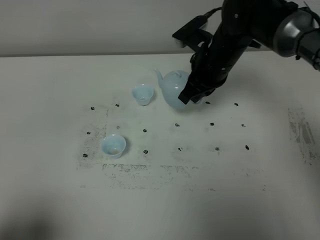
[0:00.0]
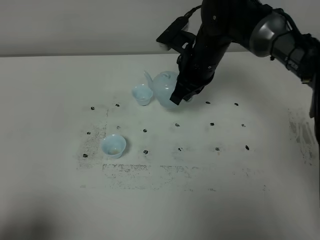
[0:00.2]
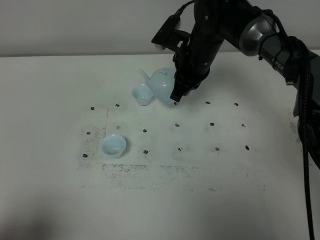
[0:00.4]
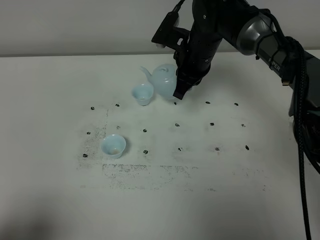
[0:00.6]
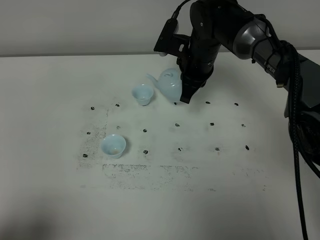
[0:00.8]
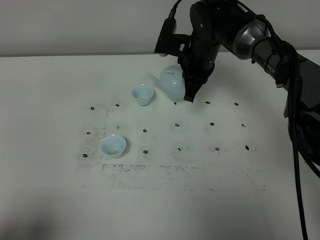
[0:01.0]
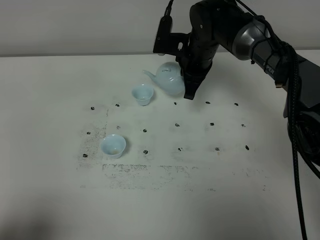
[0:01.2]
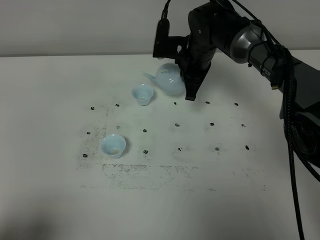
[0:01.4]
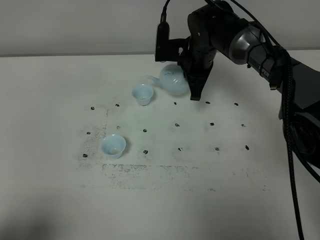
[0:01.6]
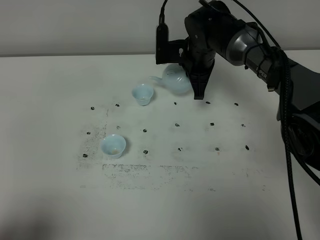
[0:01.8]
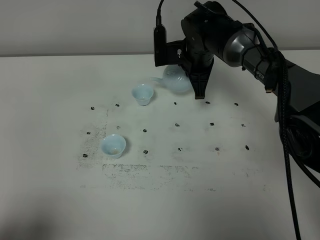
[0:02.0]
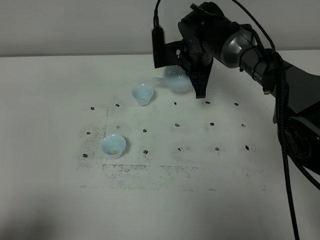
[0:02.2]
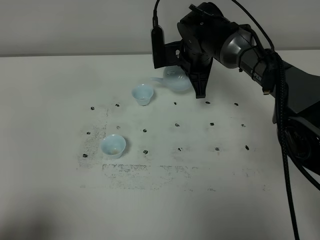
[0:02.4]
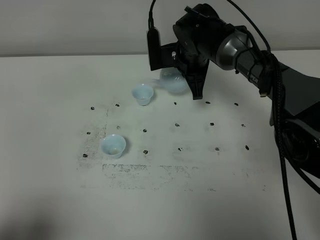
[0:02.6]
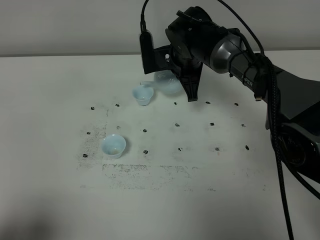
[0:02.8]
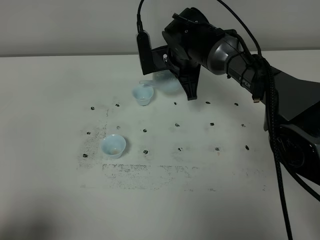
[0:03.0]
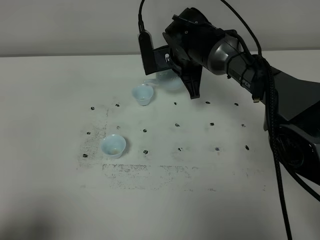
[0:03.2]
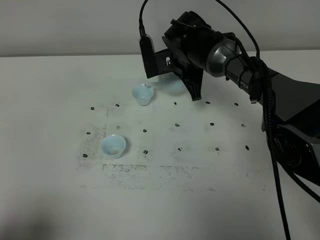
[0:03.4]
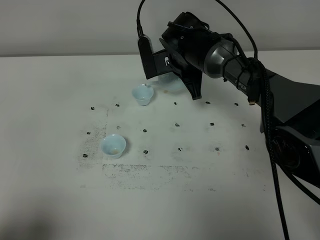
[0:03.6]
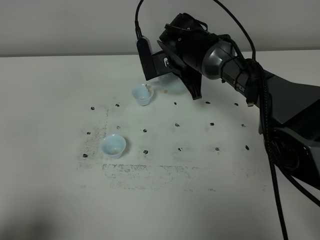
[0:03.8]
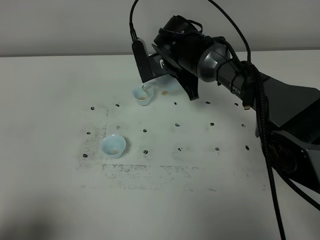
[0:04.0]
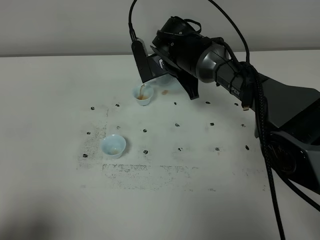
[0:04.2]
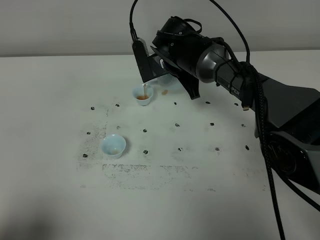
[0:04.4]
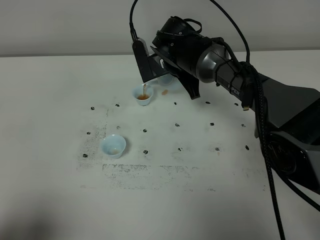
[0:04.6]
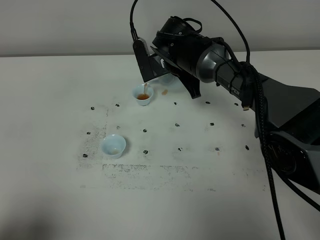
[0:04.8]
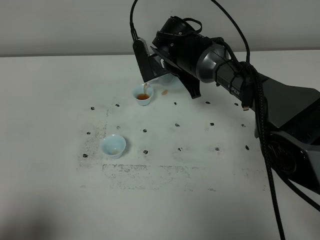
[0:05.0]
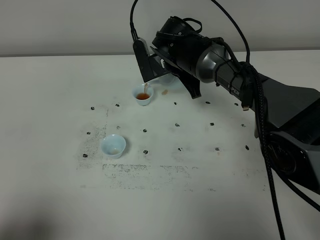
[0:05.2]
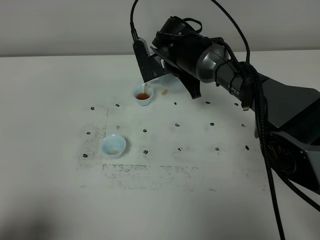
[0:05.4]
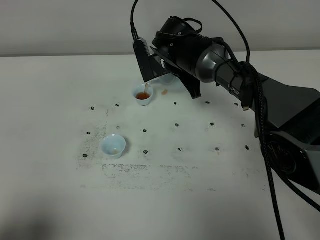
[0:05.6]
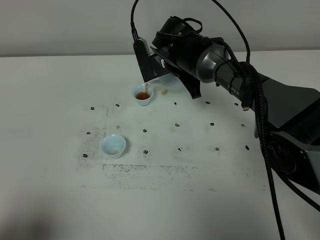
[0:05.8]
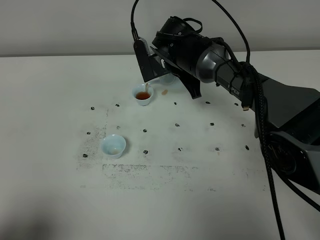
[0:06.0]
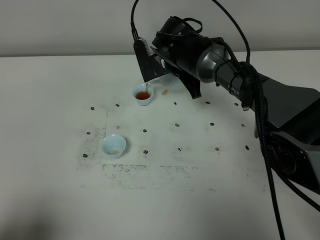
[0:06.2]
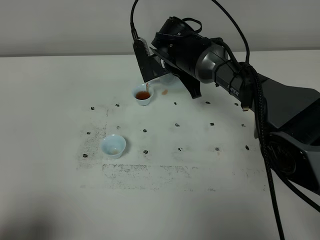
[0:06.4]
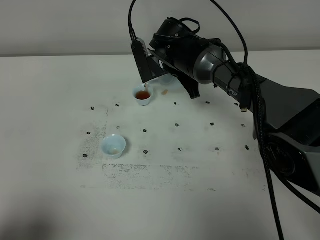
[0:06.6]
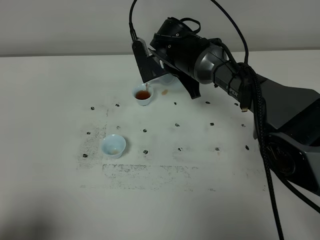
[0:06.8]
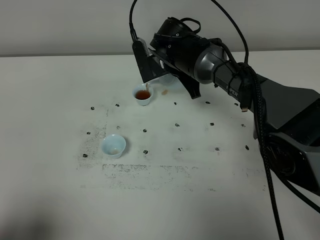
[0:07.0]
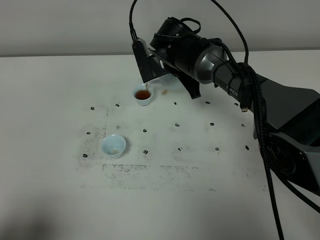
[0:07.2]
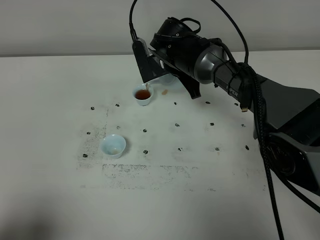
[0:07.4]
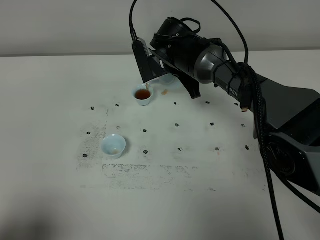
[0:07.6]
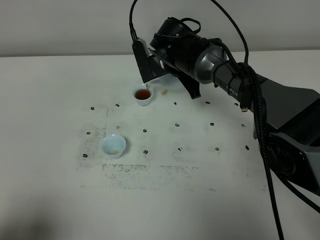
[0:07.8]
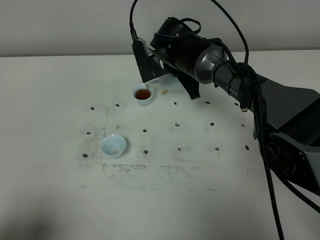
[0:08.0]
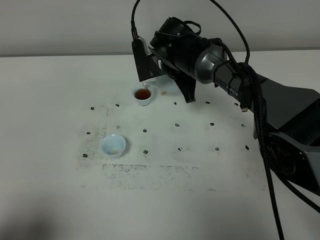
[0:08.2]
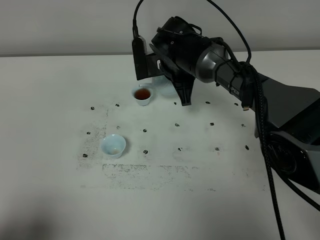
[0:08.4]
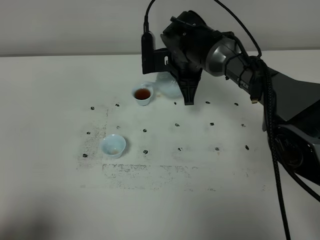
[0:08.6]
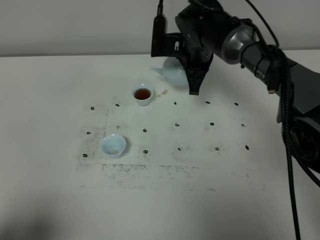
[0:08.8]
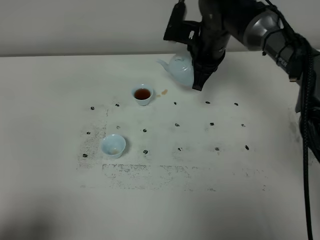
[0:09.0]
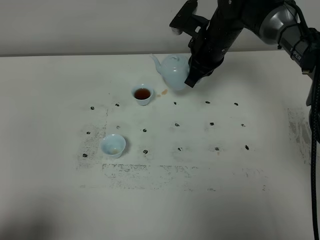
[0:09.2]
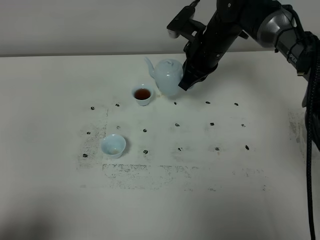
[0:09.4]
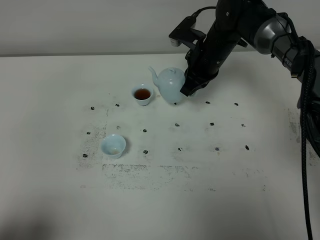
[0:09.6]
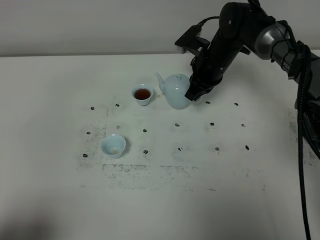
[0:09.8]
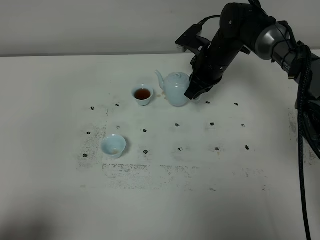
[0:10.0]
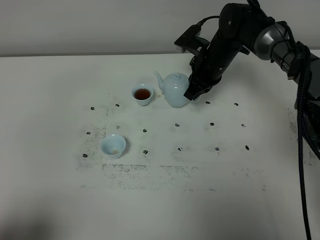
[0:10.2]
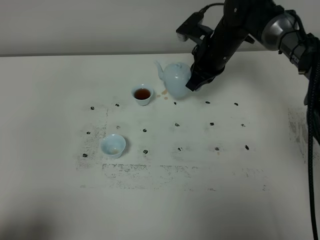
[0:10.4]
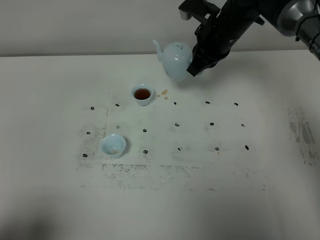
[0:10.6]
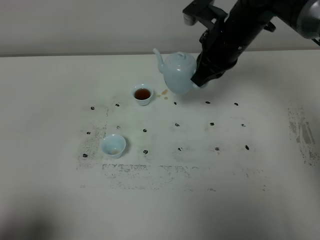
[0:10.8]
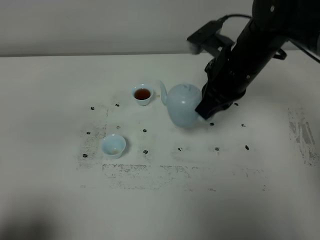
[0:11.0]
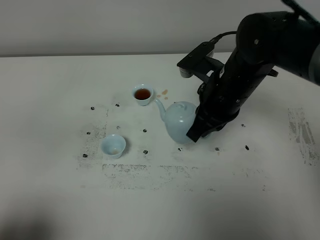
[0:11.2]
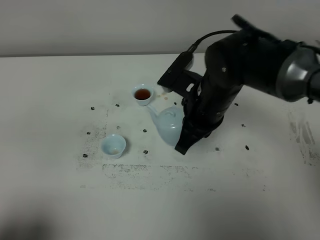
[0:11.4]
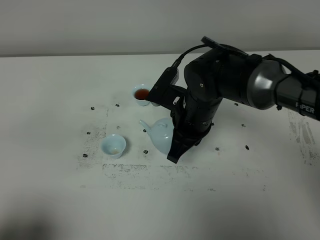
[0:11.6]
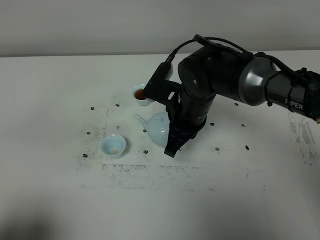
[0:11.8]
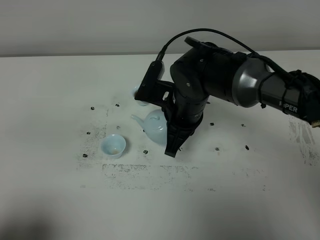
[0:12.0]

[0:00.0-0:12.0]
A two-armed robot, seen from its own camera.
Task of the whole recording: grasp the blue porcelain teapot and pour the tea into the two blue porcelain teacups one by one, put the blue porcelain teapot back in its original place.
0:00.0 to 0:01.6: The right gripper goes some 5 cm forward.
0:01.6 to 0:03.0: The grippers stay close to where they were, moving slightly.
0:03.0 to 0:04.4: There are only small adjustments of the grippers.
0:04.4 to 0:07.6: Neither gripper changes place.
0:07.6 to 0:09.0: The right gripper shifts some 5 cm to the right.
0:10.4 to 0:12.0: The right gripper travels backward and to the left by approximately 15 cm.

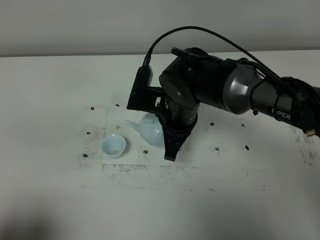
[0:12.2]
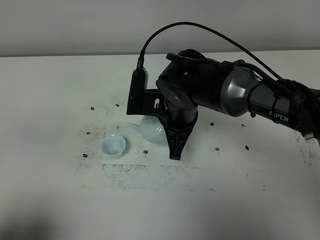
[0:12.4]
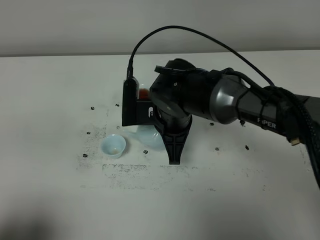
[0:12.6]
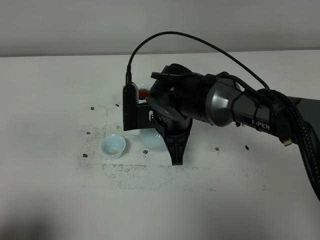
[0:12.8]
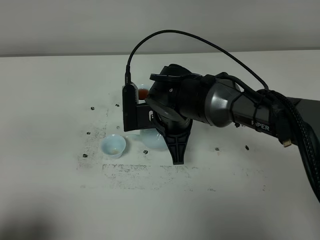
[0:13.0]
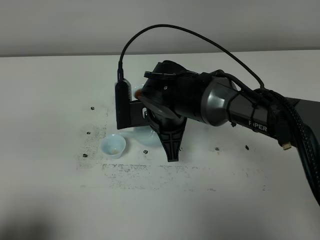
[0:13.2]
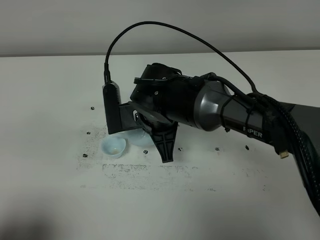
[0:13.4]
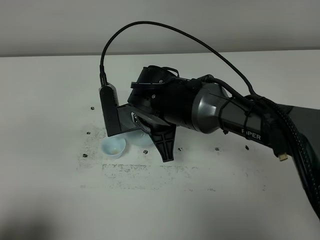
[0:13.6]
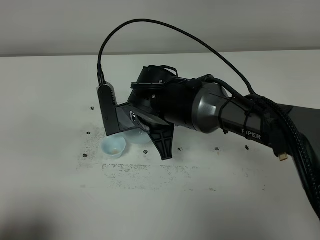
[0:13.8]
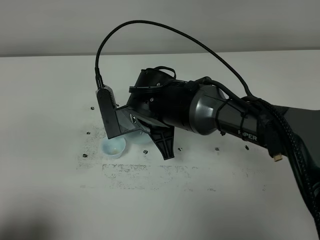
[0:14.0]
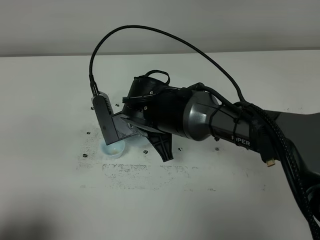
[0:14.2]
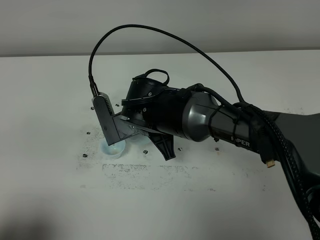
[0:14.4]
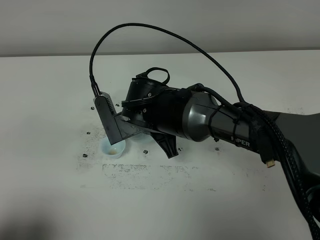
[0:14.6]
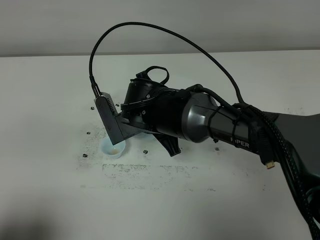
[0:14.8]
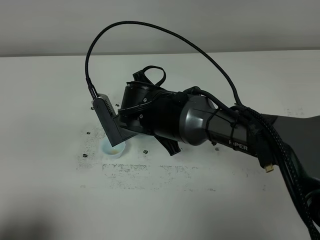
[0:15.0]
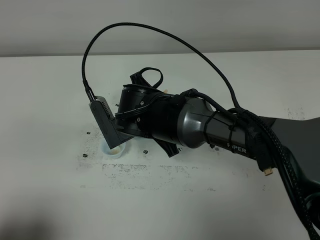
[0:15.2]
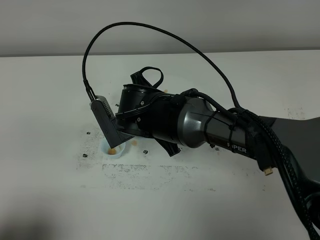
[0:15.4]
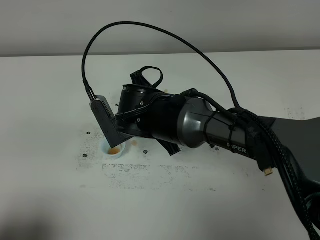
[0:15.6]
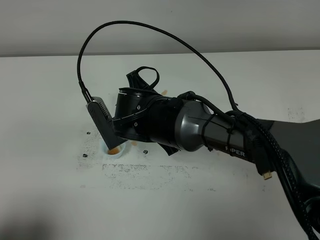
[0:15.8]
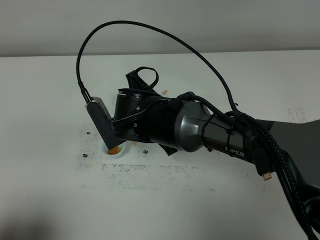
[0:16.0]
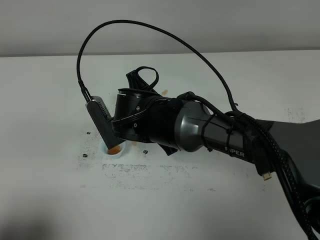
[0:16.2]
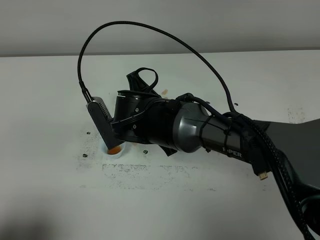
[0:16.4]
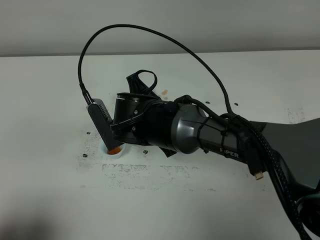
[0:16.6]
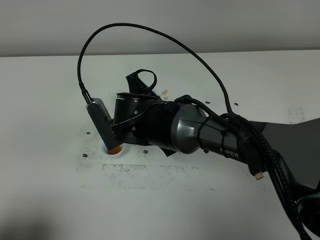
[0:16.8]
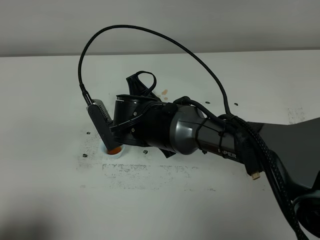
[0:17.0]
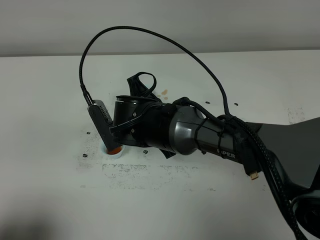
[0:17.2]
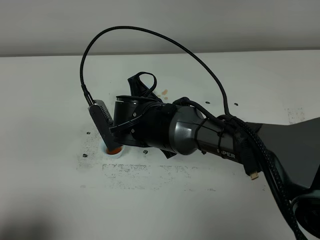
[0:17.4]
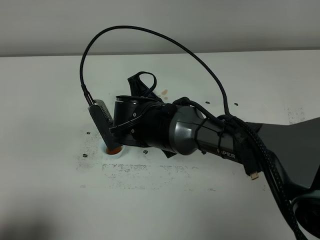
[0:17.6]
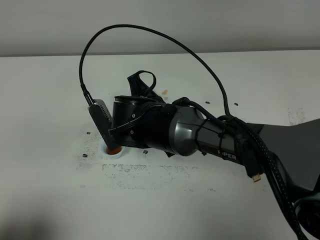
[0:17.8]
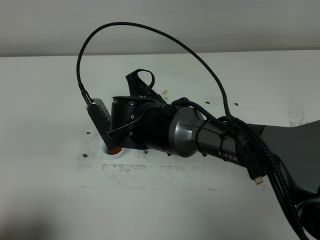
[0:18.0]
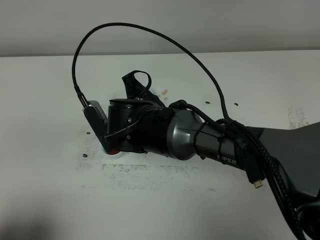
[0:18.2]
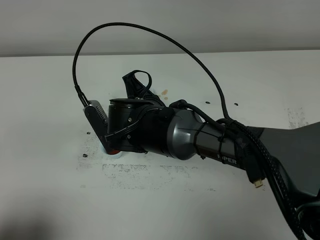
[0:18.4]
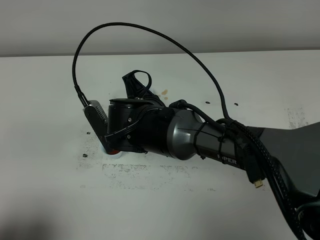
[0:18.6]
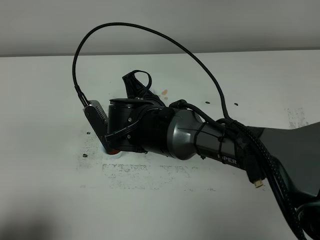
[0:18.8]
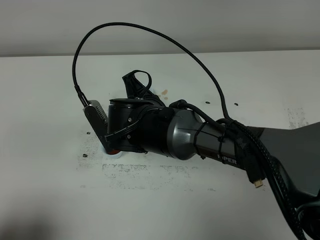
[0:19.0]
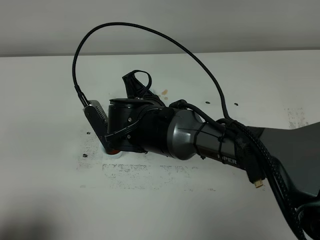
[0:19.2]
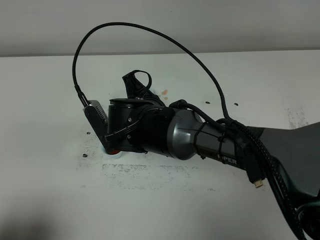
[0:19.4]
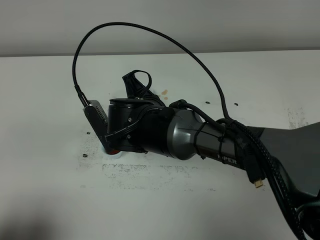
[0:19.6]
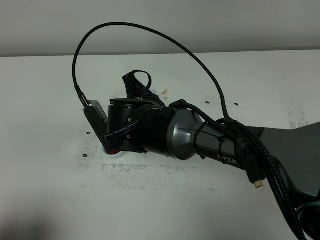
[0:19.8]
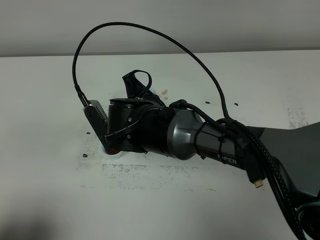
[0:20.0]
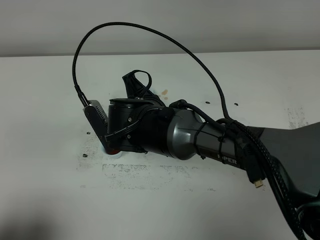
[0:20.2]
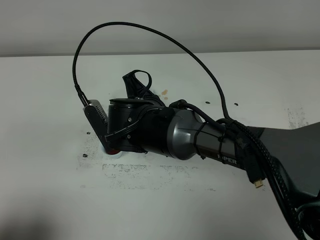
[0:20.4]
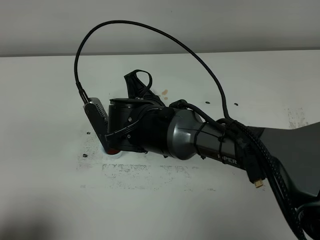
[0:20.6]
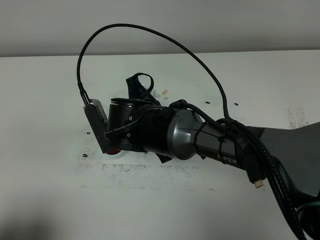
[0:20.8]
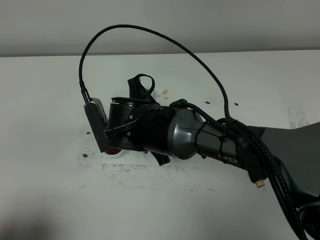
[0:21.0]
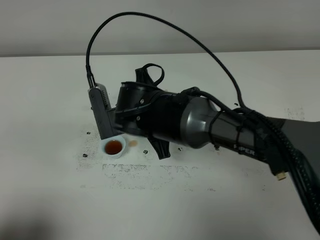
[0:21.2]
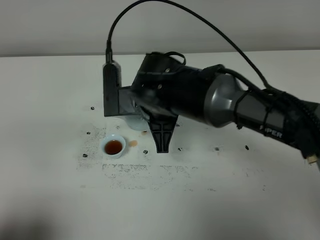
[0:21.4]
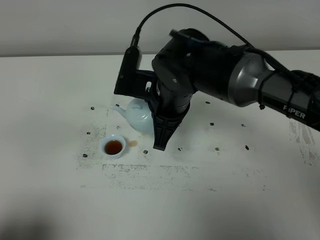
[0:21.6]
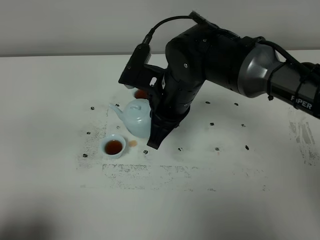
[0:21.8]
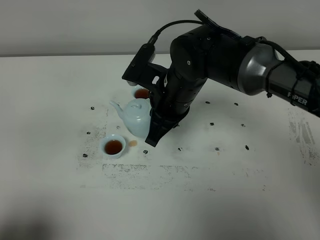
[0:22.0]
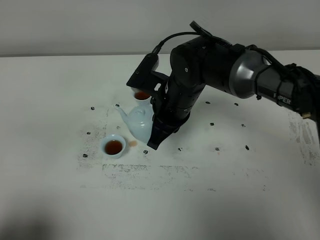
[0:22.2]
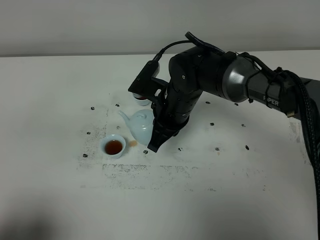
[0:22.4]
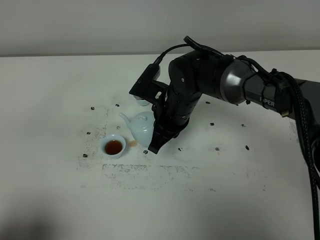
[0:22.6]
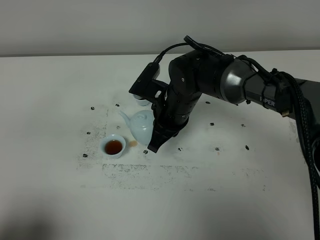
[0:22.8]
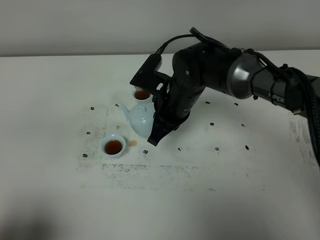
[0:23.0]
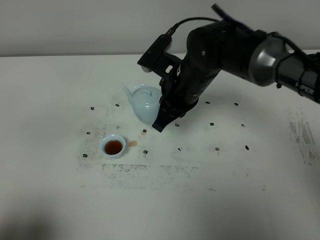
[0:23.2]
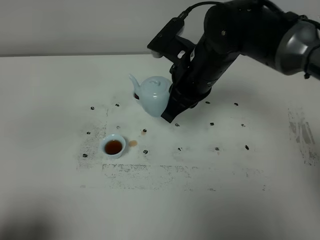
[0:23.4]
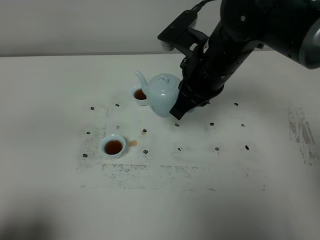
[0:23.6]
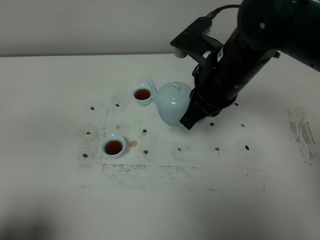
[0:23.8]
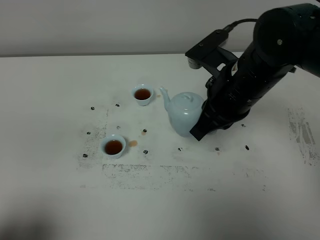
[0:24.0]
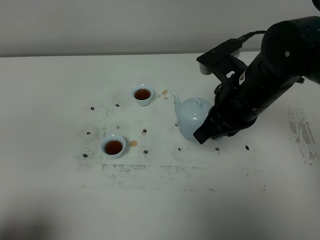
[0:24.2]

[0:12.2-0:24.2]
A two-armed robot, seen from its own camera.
Task of the whole recording: grasp the blue porcelain teapot and pour the tea into the two blue porcelain teacups one by one, put the blue porcelain teapot back in its original place.
Step, 0:12.2 to 0:21.2: Pour tea into the teacup with the right gripper.
0:13.8 to 0:15.2: The grippers stay close to where they were, moving slightly.
0:15.2 to 0:16.6: Neither gripper changes place.
0:16.6 to 0:19.8: Both grippers stay about where they are.
0:19.8 to 0:21.2: The grippers make only small movements.
0:21.2 to 0:22.6: The right gripper moves forward, about 5 cm.
0:22.6 to 0:24.2: The right gripper travels to the right, upward and backward by approximately 15 cm.
